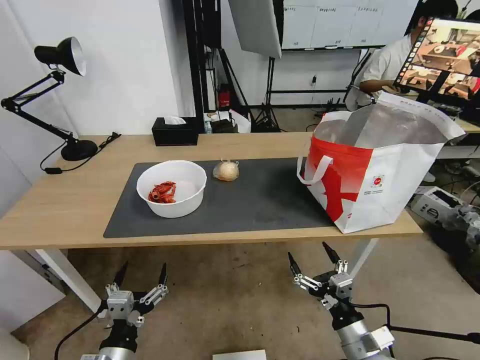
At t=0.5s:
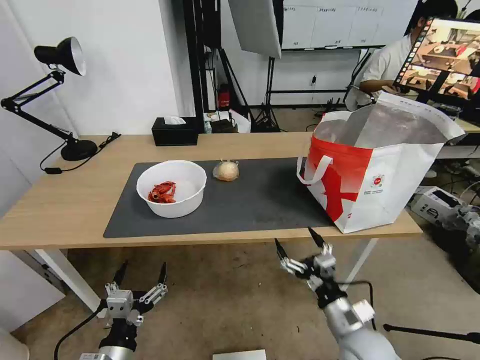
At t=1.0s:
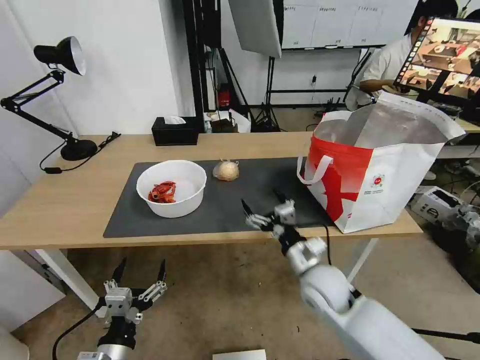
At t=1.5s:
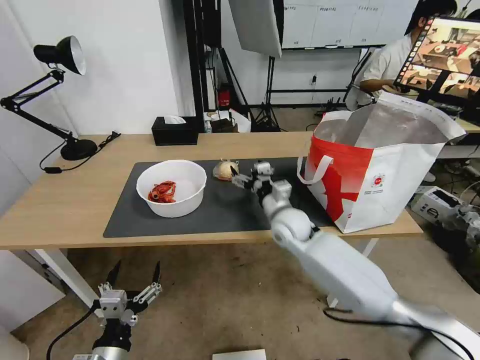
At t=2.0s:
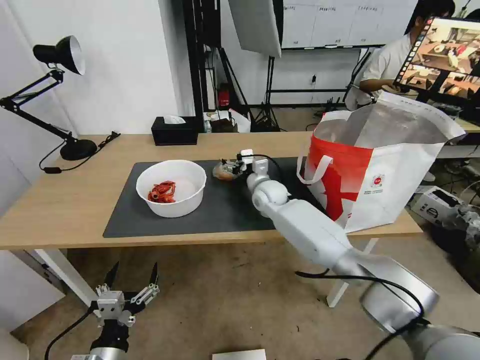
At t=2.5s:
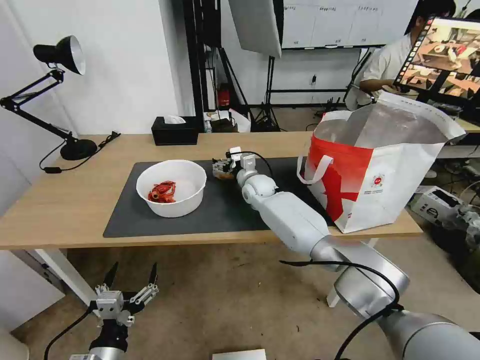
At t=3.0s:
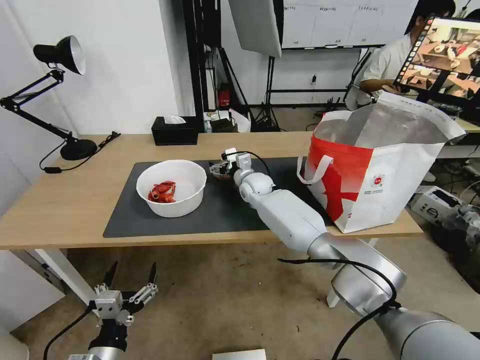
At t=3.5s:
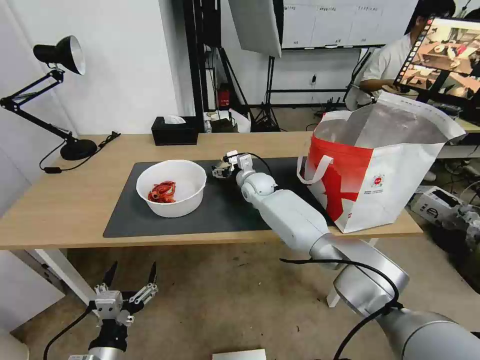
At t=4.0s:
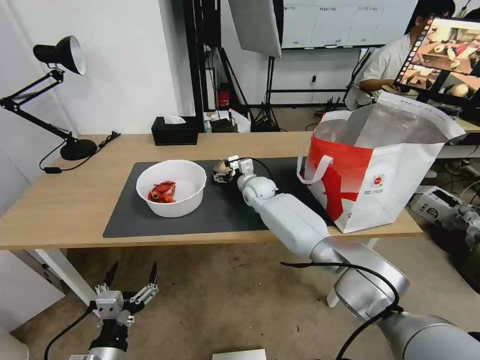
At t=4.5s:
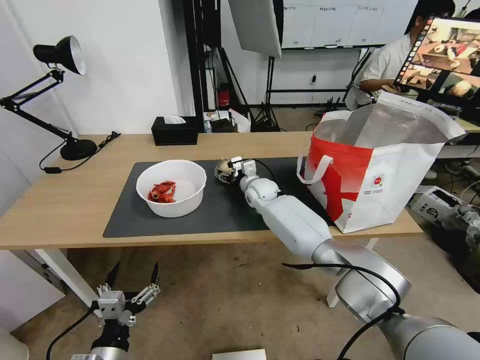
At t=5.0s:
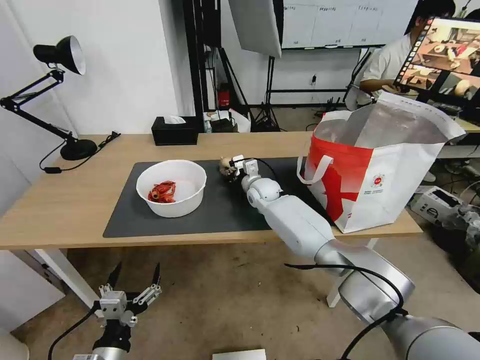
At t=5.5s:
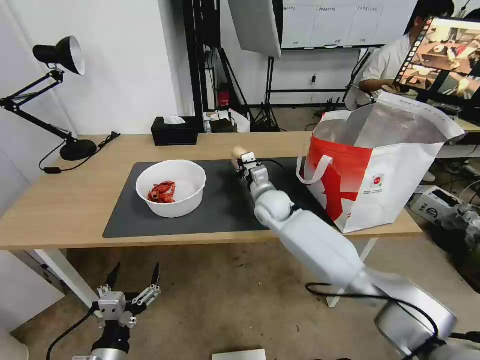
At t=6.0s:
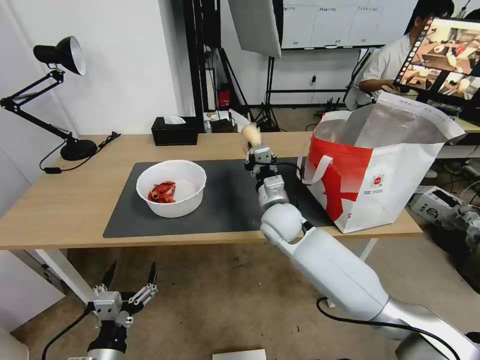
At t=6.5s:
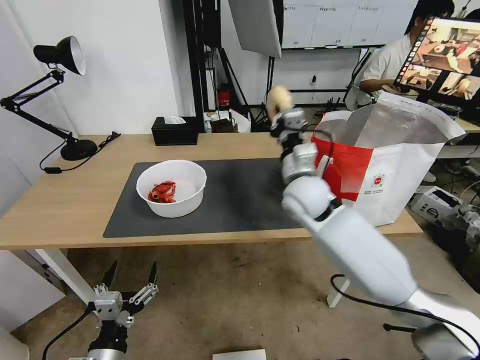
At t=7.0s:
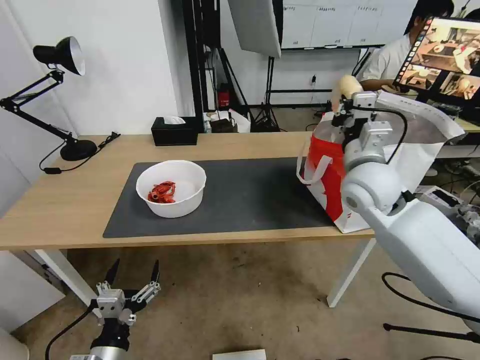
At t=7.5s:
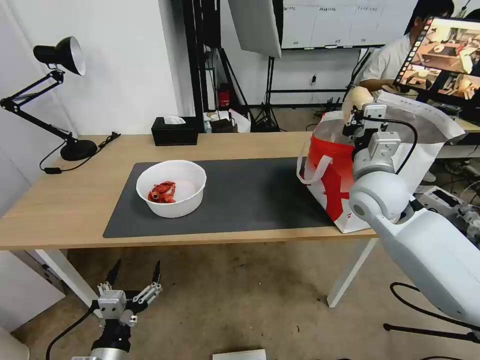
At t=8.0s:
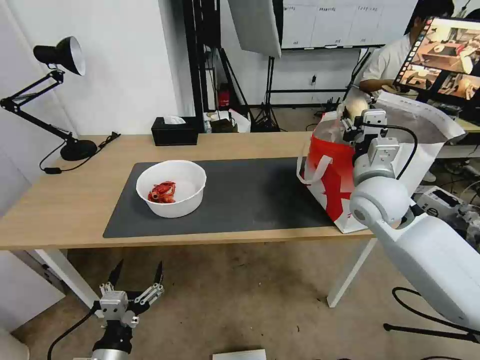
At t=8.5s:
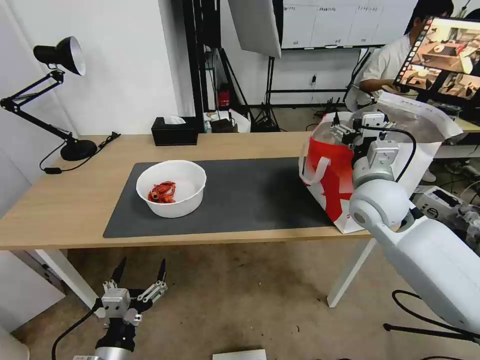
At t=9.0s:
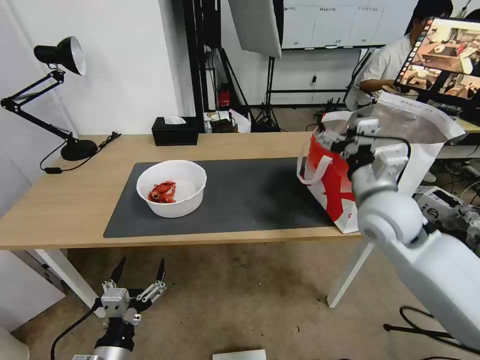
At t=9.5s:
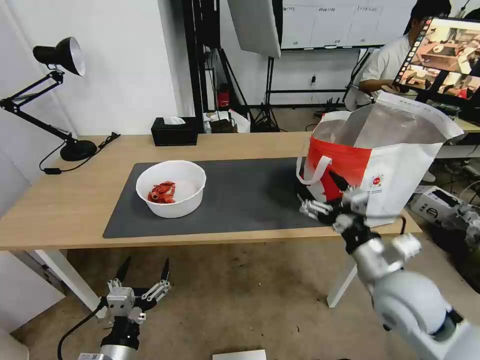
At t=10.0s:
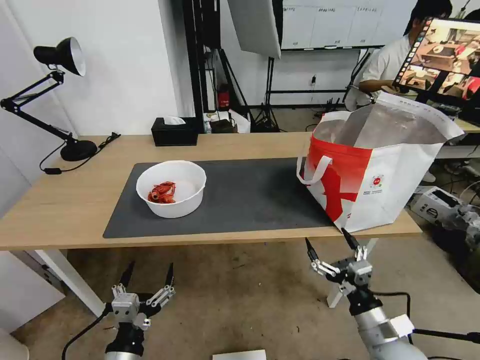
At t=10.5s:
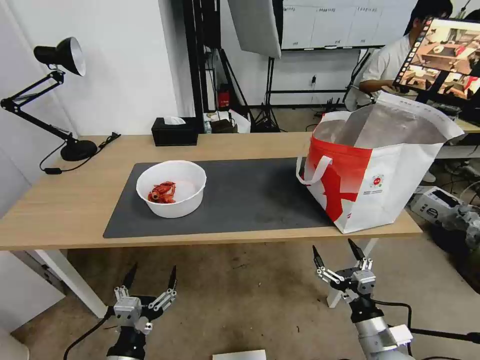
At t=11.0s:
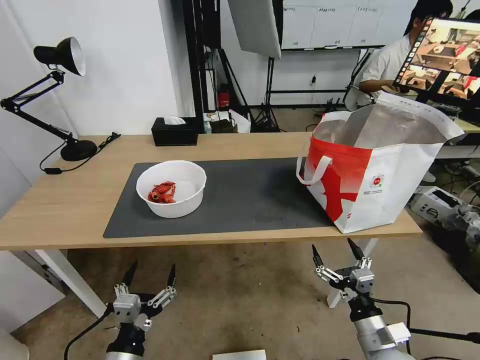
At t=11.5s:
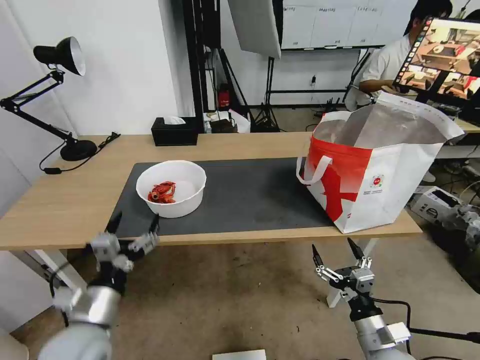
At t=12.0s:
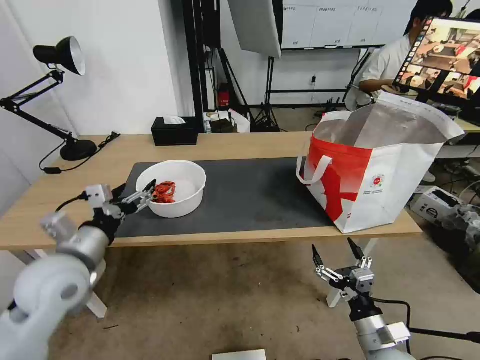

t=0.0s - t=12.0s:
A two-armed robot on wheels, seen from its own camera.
Task of the whole recording: Pick up the trash from the table and place it into the takeout bag.
t=0.0s - t=2.0s: The right gripper is displaced forward and to the left by roughly 40 cm.
t=2.0s - t=4.0s: The right gripper shifts by roughly 5 cm.
t=4.0s - t=6.0s: The right gripper moves backward, approximately 15 cm, and closes.
t=6.0s - t=8.0s: The right gripper goes about 20 cm to the right and upward, and opens up.
t=8.0s - t=10.0s: The right gripper goes approximately 30 cm backward and downward.
t=10.0s - t=12.0s: The left gripper heads forward, upward and to the left, covering approximately 25 cm.

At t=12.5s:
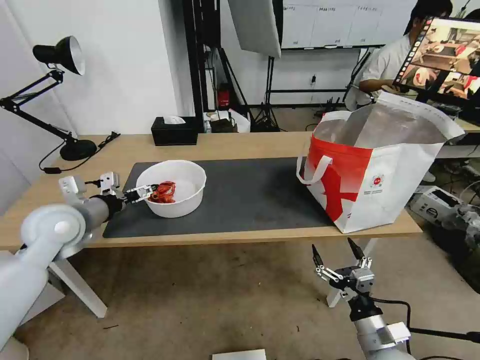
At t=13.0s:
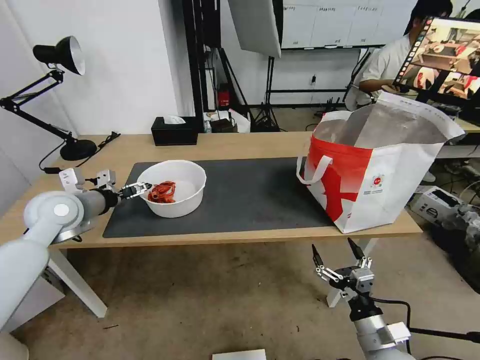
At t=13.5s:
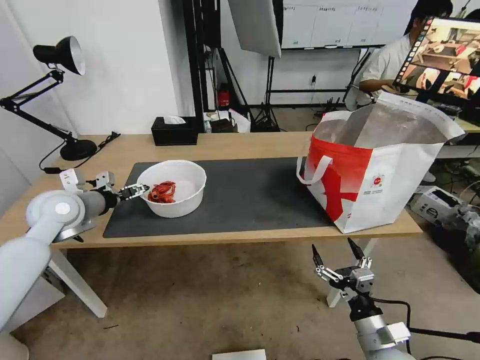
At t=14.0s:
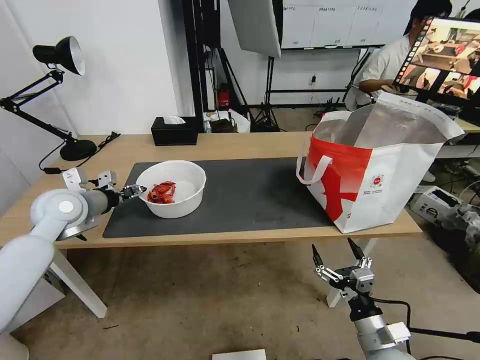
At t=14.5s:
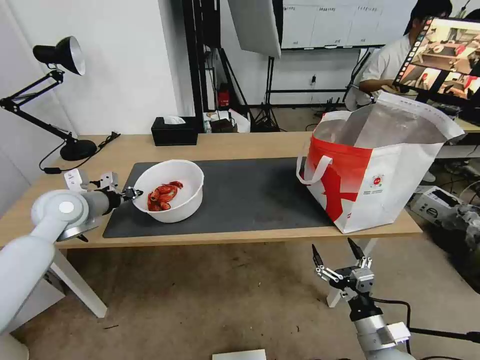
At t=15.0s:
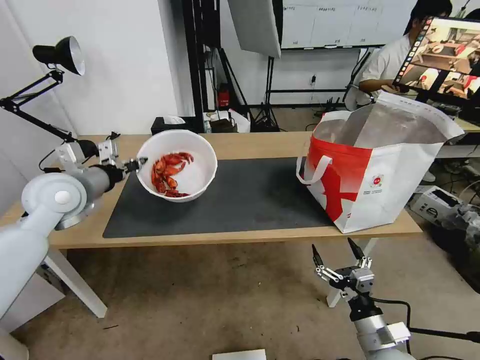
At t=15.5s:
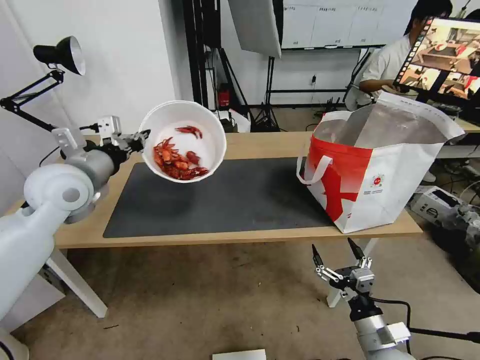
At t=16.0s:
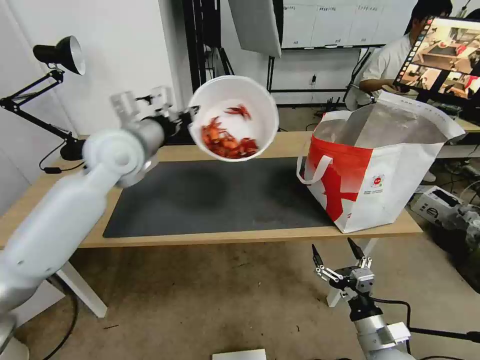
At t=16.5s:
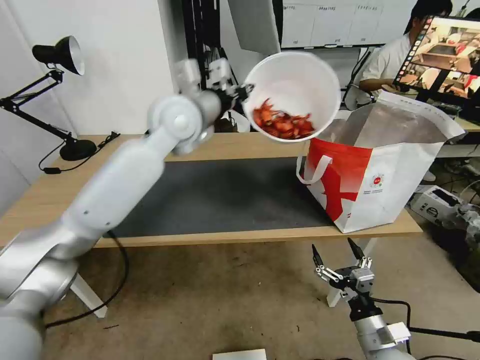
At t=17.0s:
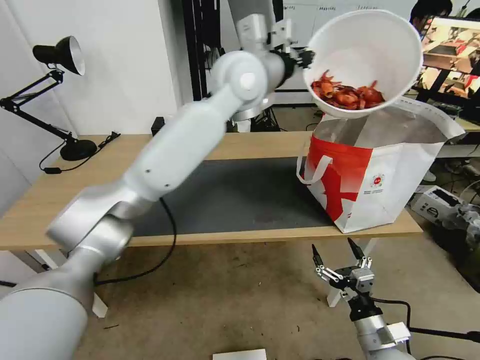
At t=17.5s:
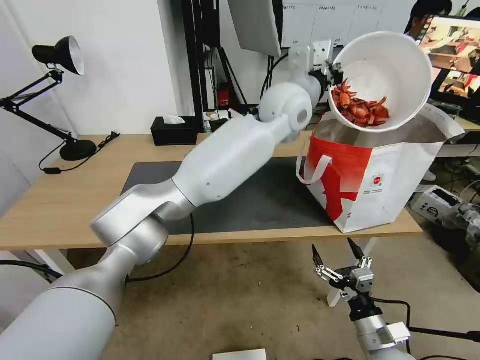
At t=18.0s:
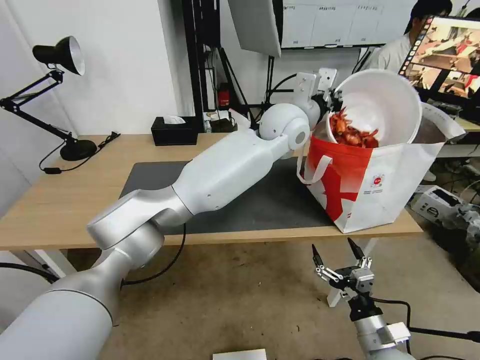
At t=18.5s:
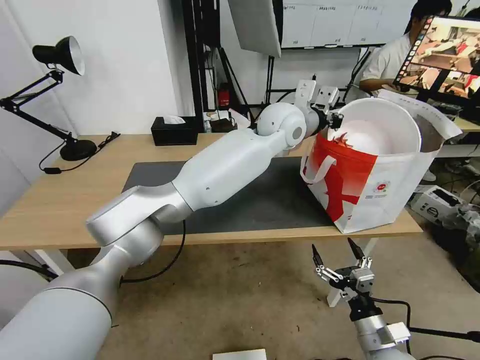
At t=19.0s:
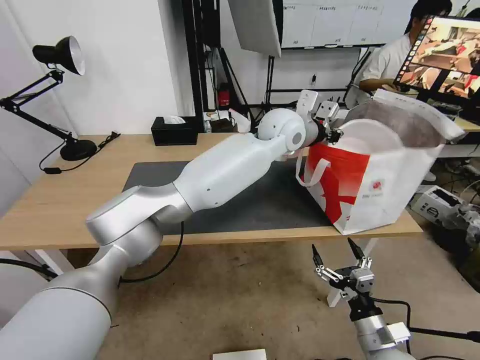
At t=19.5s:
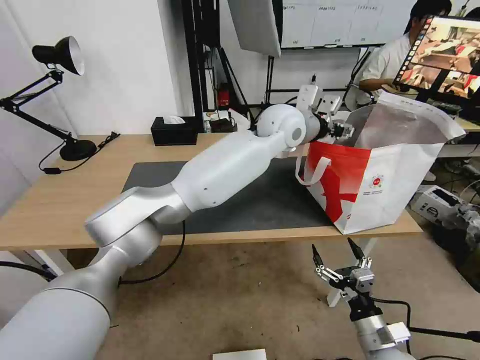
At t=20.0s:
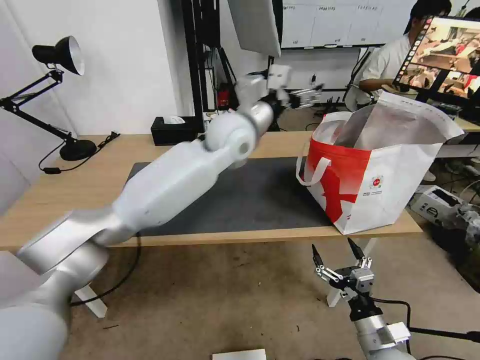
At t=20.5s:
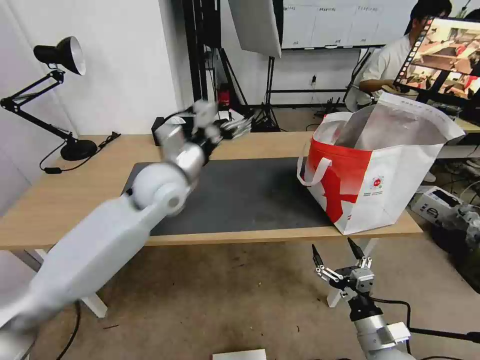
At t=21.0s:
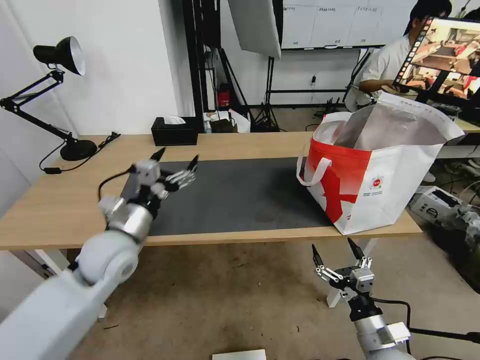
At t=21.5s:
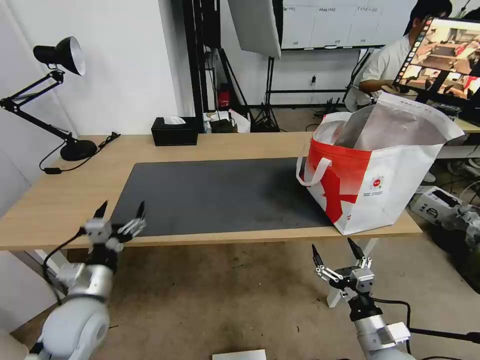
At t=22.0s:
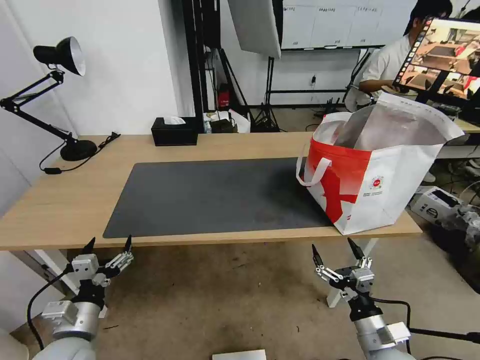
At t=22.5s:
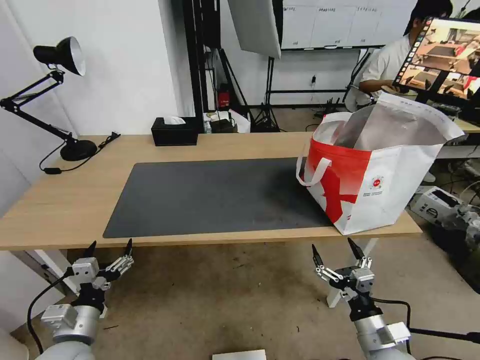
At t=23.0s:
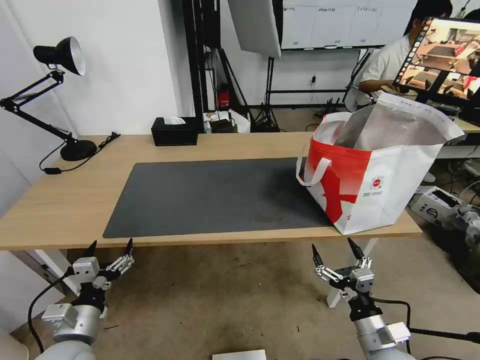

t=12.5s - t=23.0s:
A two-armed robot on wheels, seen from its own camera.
Task of the whole recording: Pick up the trash from the table and place it into the takeout bag.
t=12.5s - t=14.5s: The left gripper travels forward by some 5 cm, and closes.
t=14.5s - t=16.5s: The left gripper goes about 30 cm to the right and upward.
t=16.5s - t=19.0s: The left gripper travels to the right by approximately 20 cm.
t=19.0s - t=21.0s: The left gripper travels to the left, backward and downward by roughly 40 cm, and opens up.
t=21.0s - t=23.0s: The left gripper heads backward, downward and to the left, covering roughly 20 cm.

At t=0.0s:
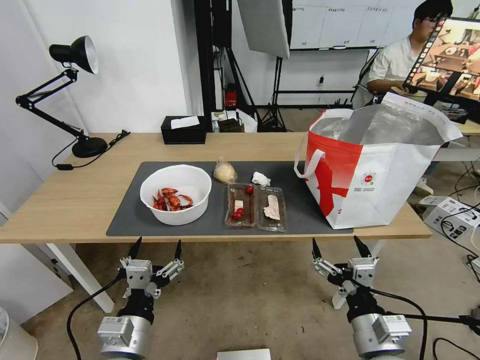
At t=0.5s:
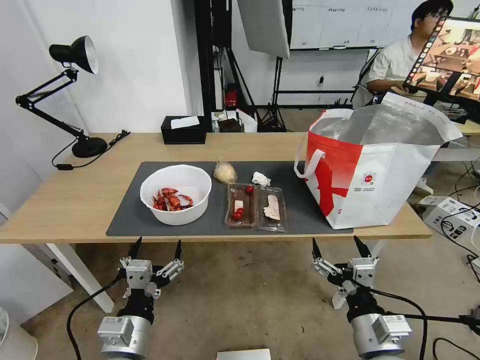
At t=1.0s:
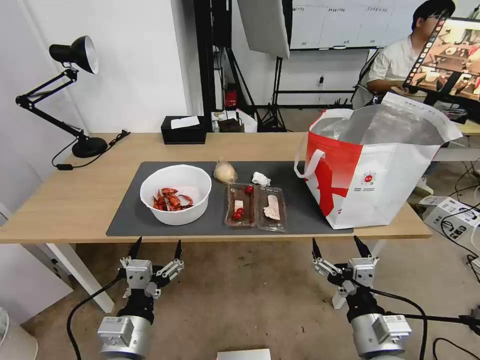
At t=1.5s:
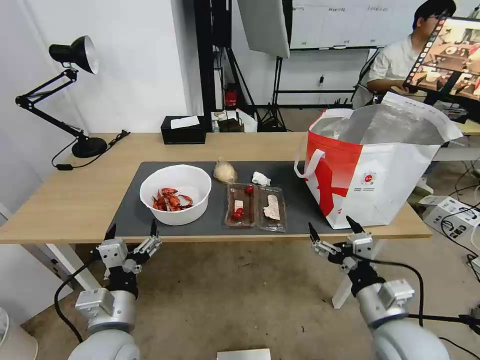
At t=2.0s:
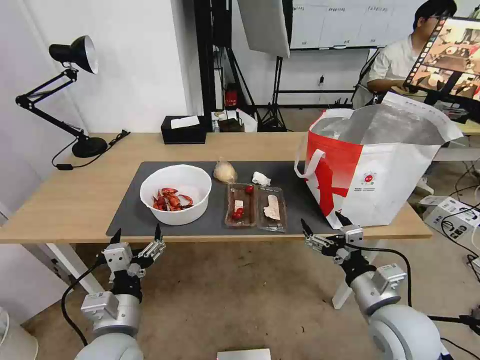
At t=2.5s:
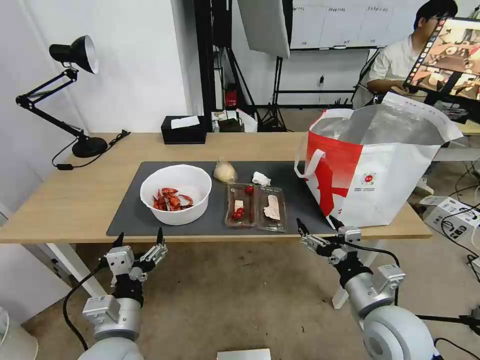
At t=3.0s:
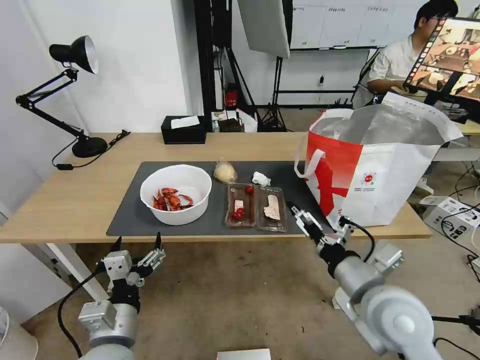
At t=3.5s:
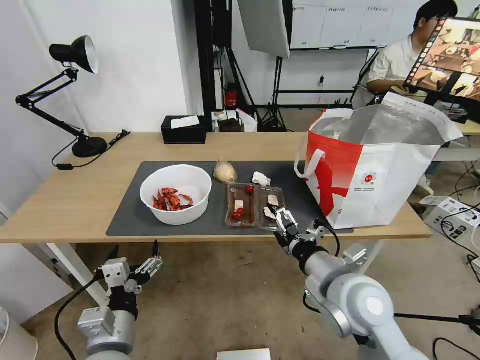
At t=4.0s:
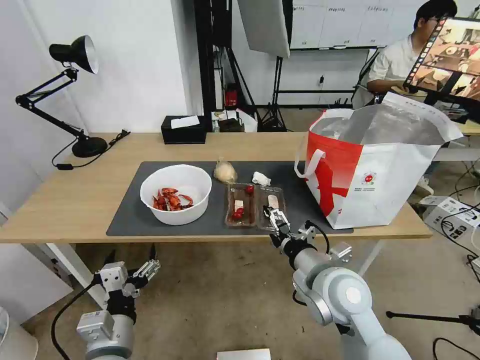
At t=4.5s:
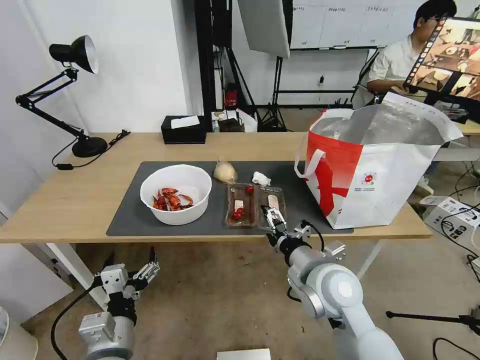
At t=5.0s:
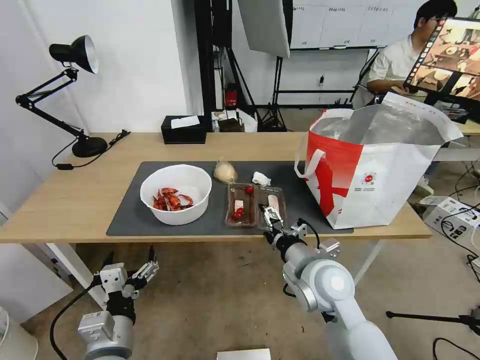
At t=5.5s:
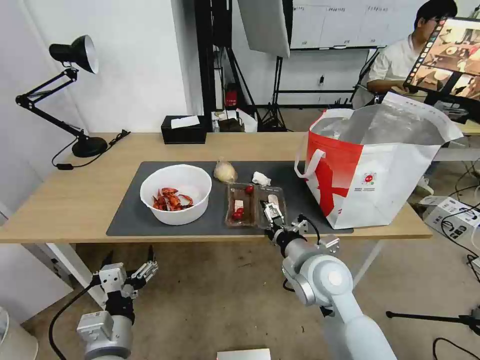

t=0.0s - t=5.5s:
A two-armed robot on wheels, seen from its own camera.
Task of the whole recording: Pick up the trash from the table and place it into the takeout bag.
t=2.0s - t=3.5s: The right gripper heads to the left, covering some 10 cm.
t=3.5s - t=5.5s: The right gripper is displaced forward by approximately 5 cm.
